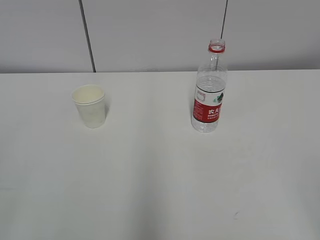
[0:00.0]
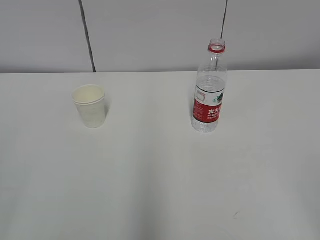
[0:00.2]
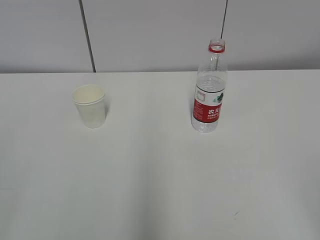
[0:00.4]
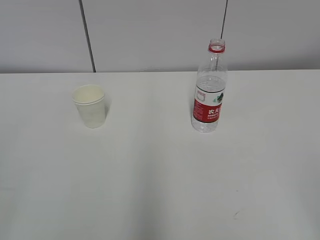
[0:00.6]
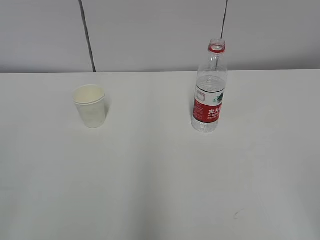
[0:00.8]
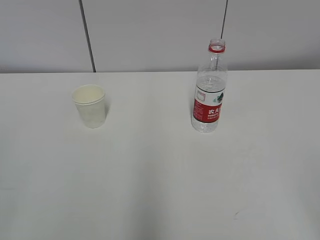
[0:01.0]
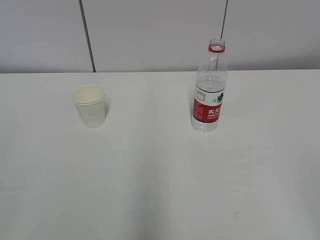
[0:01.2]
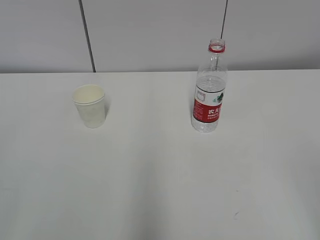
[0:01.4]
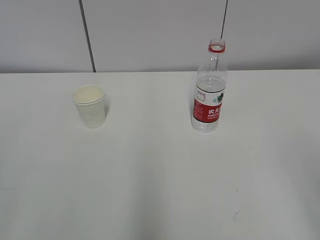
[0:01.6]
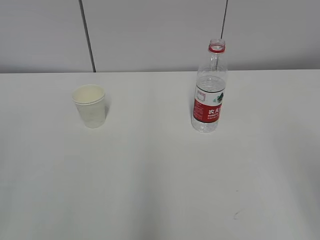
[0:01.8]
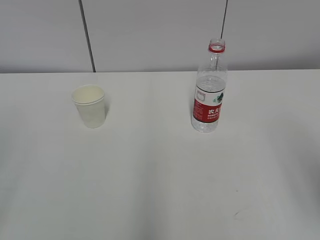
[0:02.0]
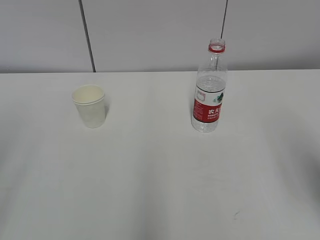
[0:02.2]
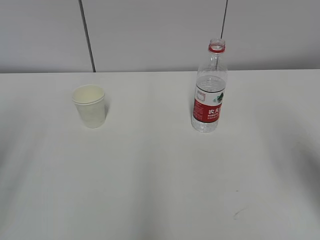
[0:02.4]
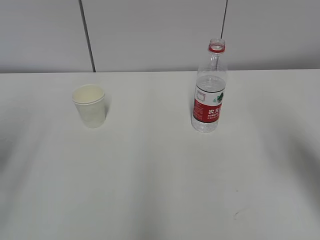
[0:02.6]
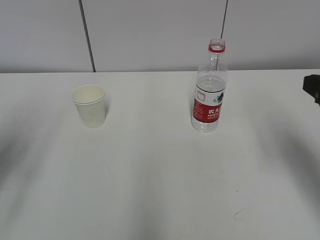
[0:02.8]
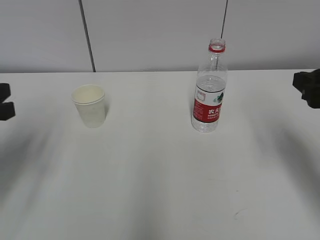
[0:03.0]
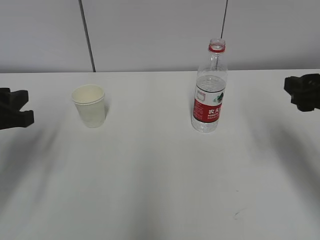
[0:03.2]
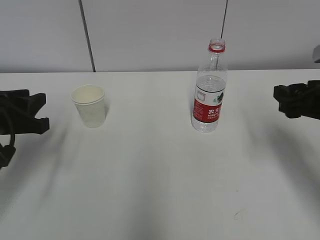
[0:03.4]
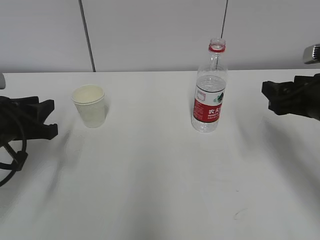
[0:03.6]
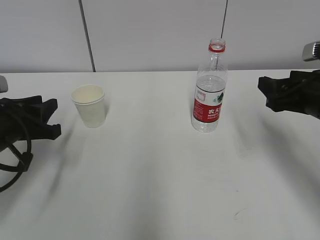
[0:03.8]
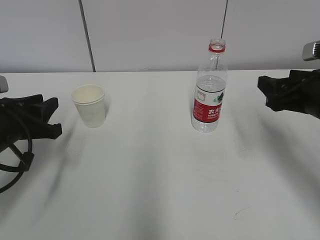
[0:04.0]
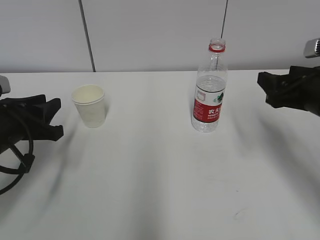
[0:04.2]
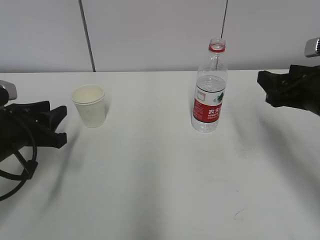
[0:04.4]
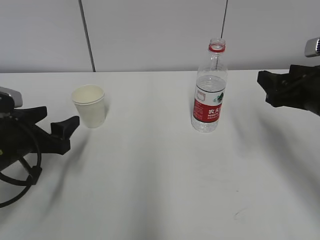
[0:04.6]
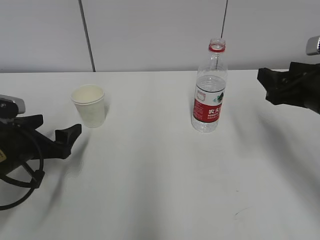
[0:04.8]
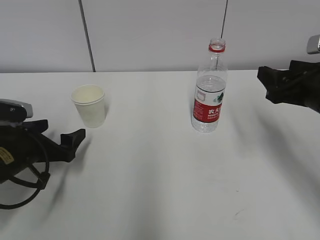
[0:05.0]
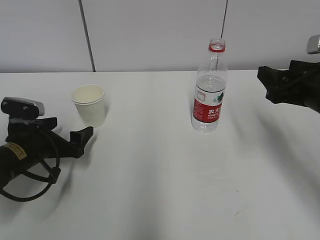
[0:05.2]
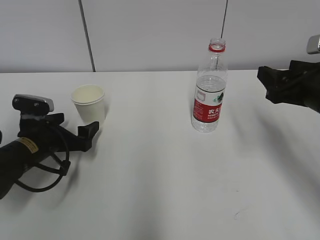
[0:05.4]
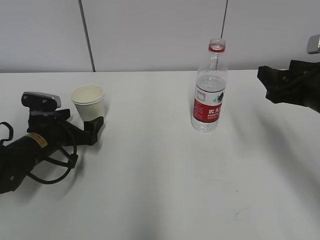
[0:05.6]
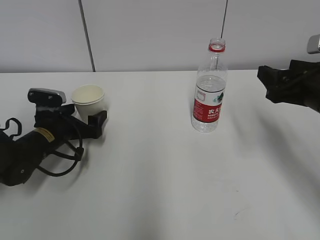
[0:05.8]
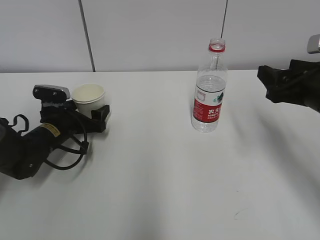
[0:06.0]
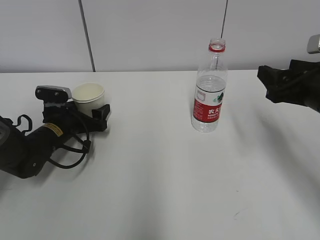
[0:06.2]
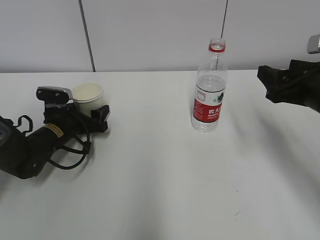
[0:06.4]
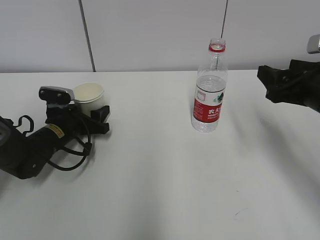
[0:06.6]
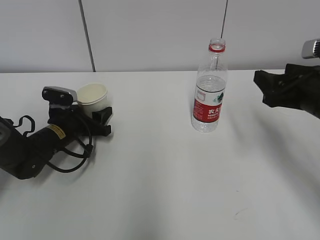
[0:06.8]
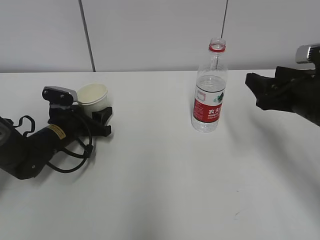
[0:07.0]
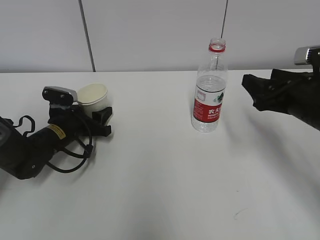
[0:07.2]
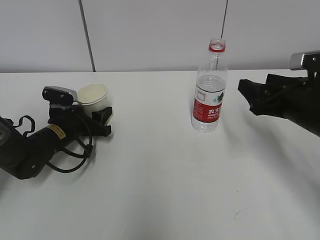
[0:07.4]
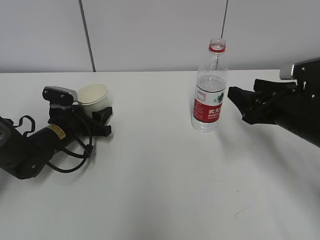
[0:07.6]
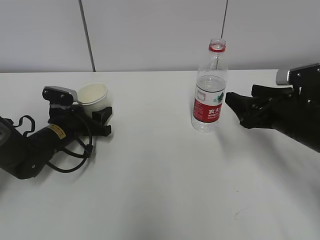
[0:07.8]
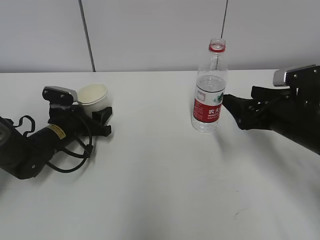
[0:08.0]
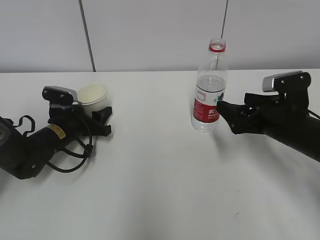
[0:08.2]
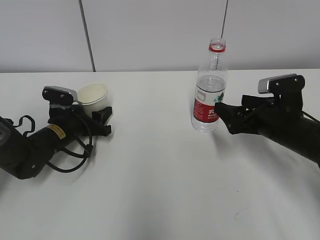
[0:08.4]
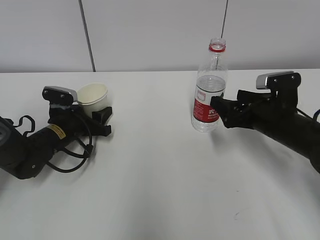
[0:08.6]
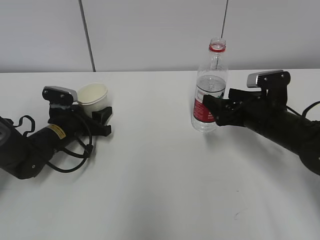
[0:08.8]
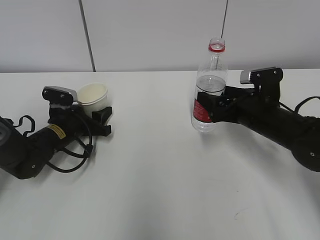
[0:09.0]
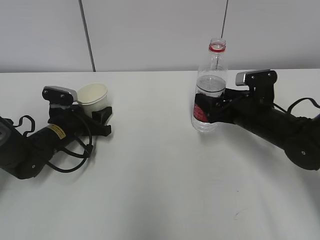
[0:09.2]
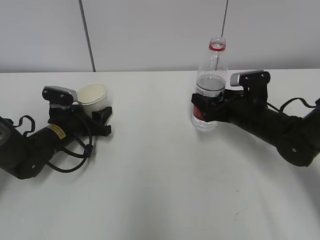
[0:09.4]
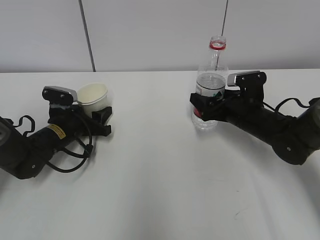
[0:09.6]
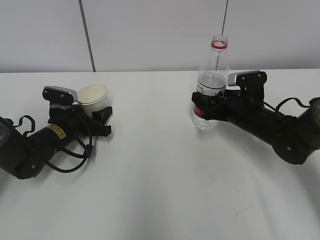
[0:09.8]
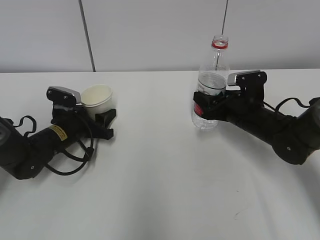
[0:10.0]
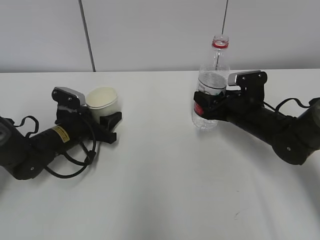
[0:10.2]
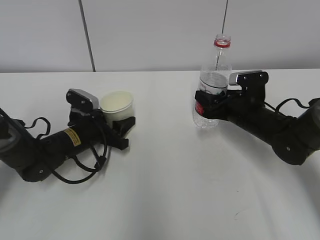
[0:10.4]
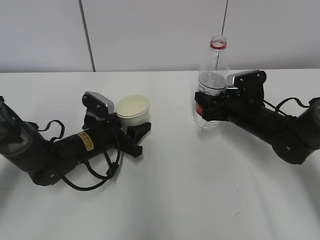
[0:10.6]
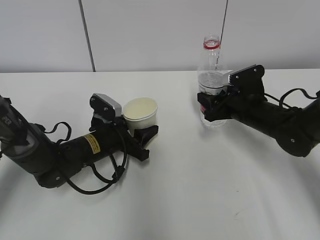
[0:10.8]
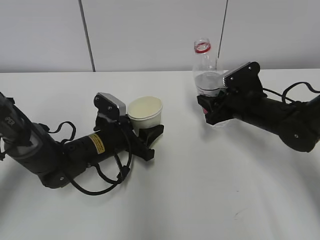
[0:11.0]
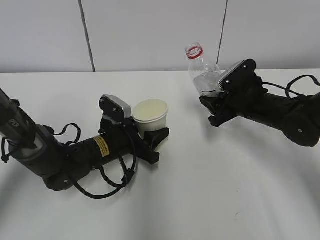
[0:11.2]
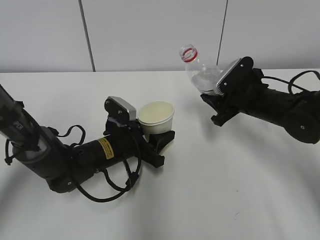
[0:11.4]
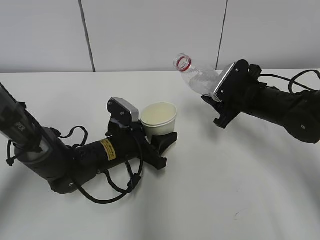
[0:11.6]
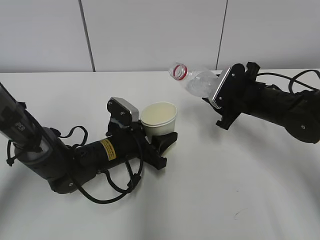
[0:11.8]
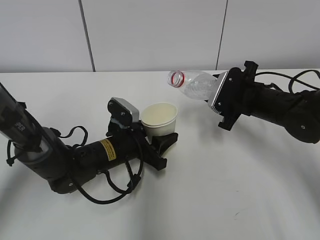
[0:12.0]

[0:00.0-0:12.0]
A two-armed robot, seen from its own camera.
Step, 0:00.0 to 0:08.6: Grab the water bottle with the right hand.
Step, 0:09.2 to 0:11.6: Lift the paper cup with the left hand.
0:01.6 to 0:03.0: The grippers both shift forward by some 20 cm.
0:03.0 to 0:04.4: The left gripper is displaced downward by approximately 10 cm. The right gripper changes place by some 5 cm.
0:04.4 to 0:06.0: The left gripper travels forward and downward by some 15 cm, and opens its fingers.
0:06.0 to 0:07.6: The right gripper shifts by about 5 cm; the left gripper closes up.
0:07.6 to 0:09.0: The right gripper moves forward, roughly 5 cm, and opens its fingers.
0:09.0 to 0:10.4: The right gripper closes up.
0:10.4 to 0:12.0: The left gripper is displaced to the right by some 10 cm.

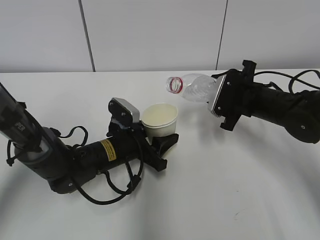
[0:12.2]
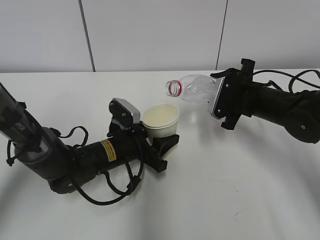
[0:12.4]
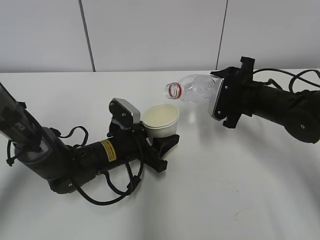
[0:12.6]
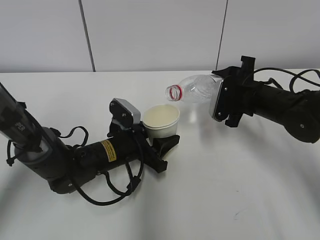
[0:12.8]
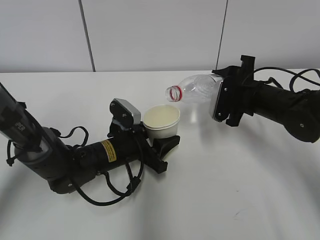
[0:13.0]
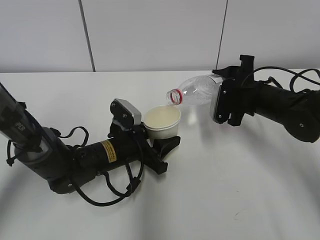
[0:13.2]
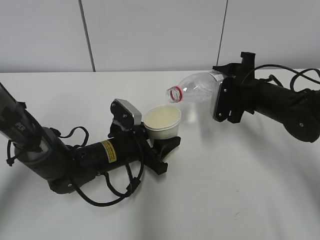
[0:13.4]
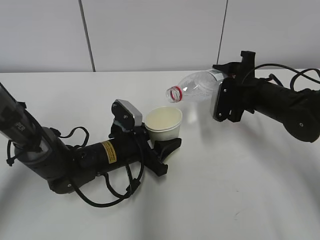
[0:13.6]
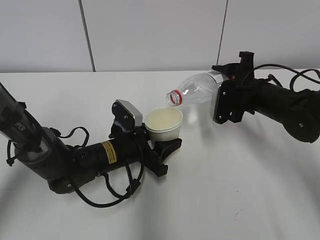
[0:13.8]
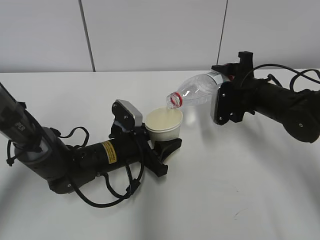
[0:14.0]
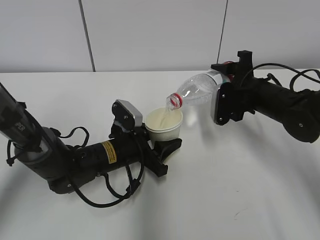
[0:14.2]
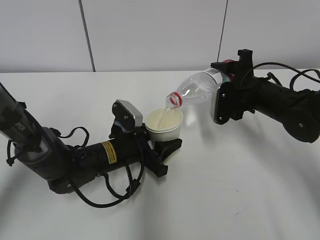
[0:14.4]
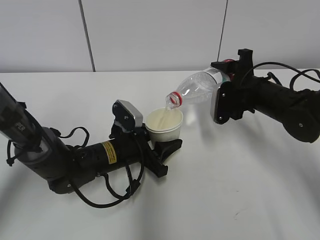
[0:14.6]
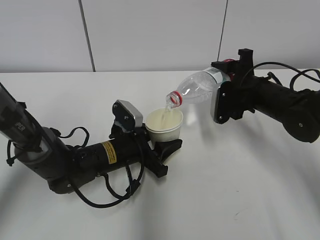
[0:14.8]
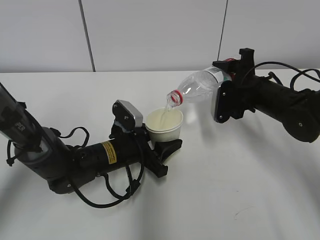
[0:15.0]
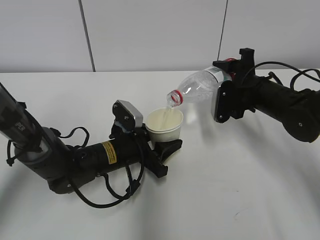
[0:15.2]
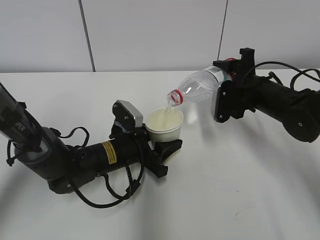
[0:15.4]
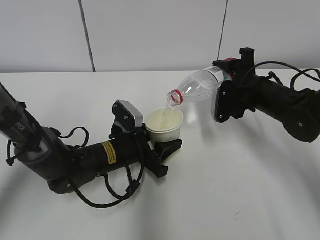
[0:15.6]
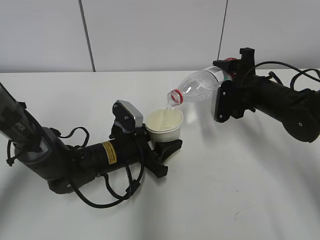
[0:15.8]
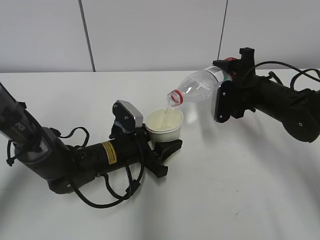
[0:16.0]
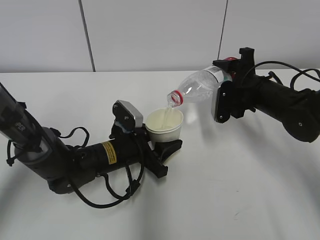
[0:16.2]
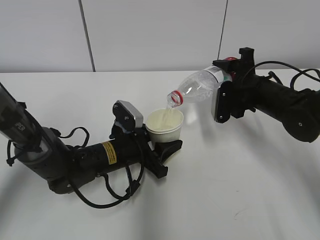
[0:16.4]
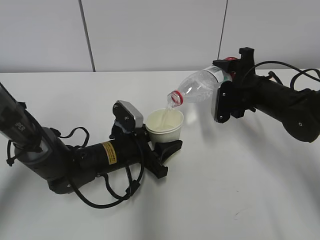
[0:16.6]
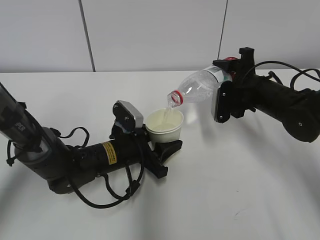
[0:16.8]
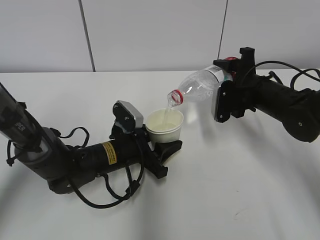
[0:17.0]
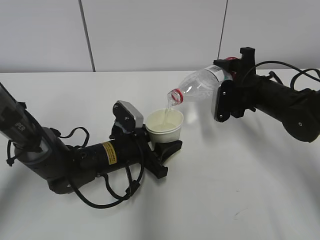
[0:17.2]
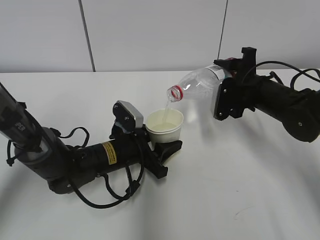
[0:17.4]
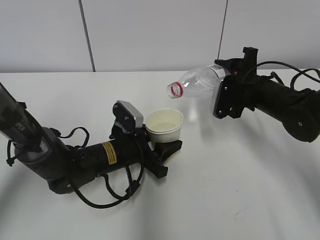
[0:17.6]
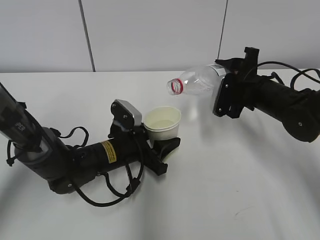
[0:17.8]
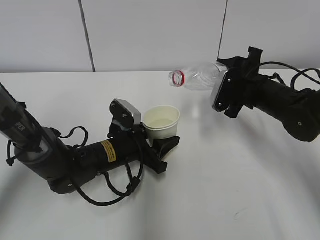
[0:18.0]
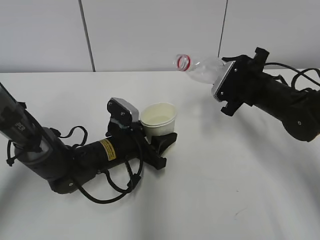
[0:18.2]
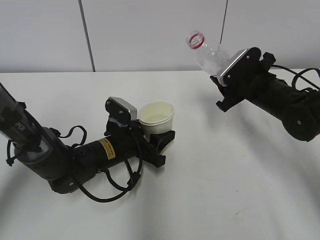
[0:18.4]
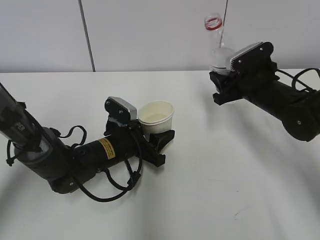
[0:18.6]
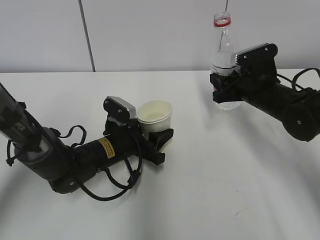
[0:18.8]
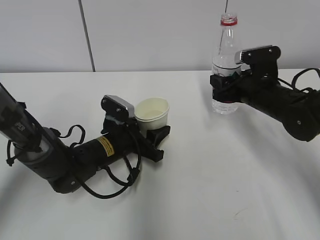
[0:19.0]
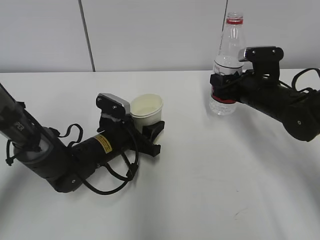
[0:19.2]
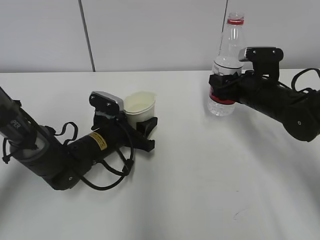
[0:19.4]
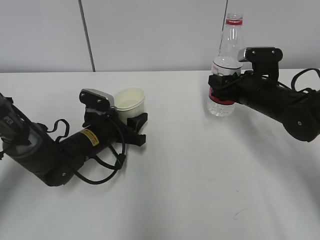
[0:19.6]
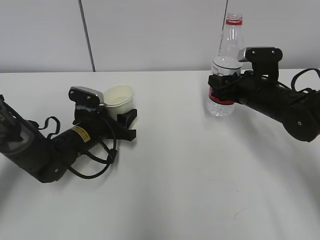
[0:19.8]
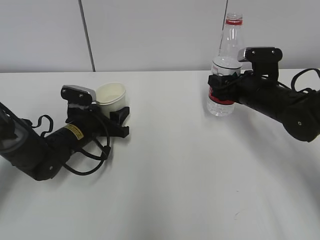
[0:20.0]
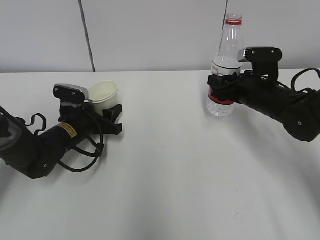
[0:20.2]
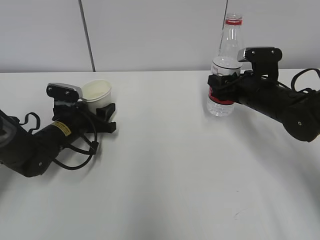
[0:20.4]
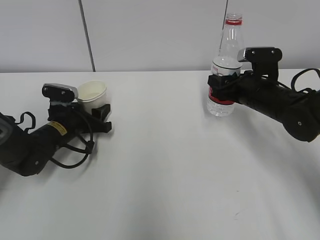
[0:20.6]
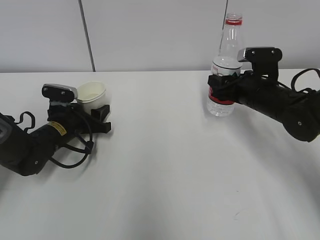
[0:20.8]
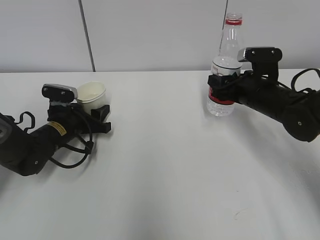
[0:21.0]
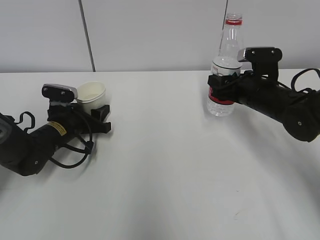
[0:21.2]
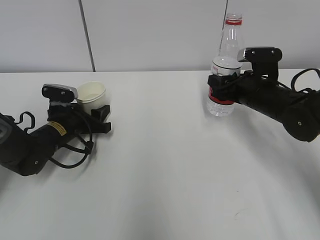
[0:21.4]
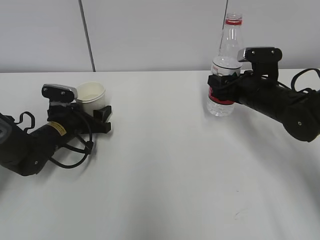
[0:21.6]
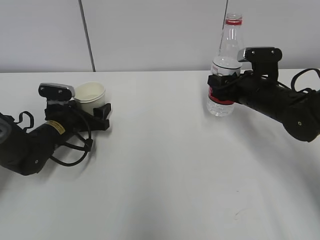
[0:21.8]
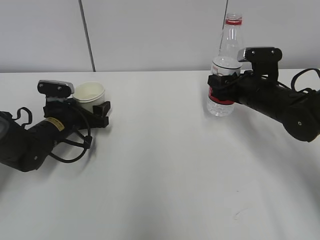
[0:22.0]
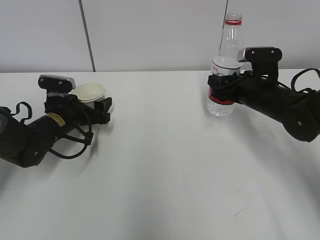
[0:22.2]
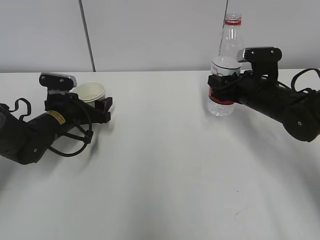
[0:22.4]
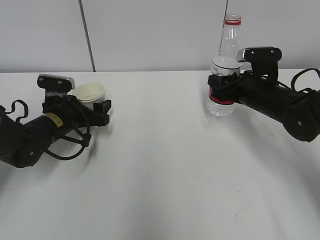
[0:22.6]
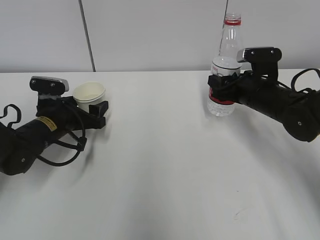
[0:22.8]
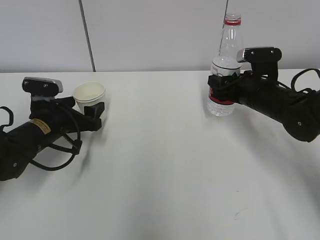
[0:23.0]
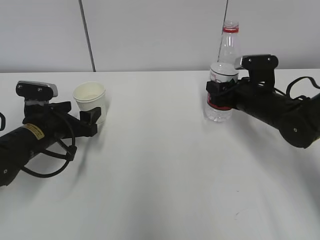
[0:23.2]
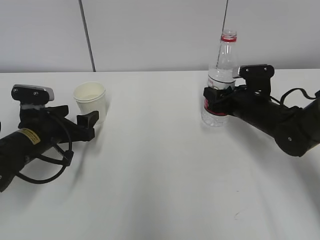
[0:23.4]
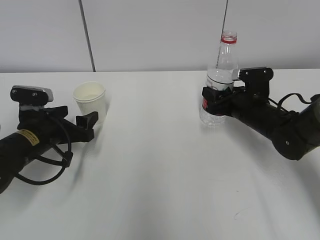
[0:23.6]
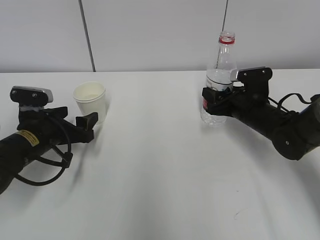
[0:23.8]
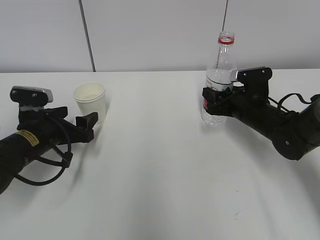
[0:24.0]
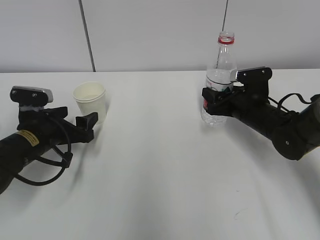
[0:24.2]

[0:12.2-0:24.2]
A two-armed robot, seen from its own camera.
Step, 0:12.2 to 0:14.6: Fill water with the left hand.
Step, 0:12.2 to 0:14.6: Pour water with the right hand.
Step, 0:16.0 to 0:17.8: Place the paper cup with the left hand.
0:13.8 to 0:15.2: Neither gripper changes place.
0:15.2 to 0:16.6: Both grippers stay put.
0:18.2 to 0:19.8: The left gripper travels to the left by about 5 cm.
0:19.8 to 0:21.2: The left gripper is displaced to the left by some 5 cm.
0:21.2 to 0:22.6: The left gripper opens up.
0:22.6 to 0:24.2: The left gripper moves backward, roughly 5 cm.
